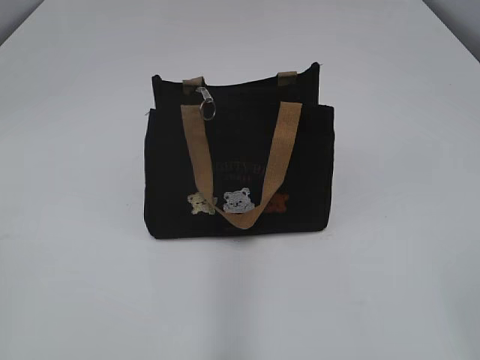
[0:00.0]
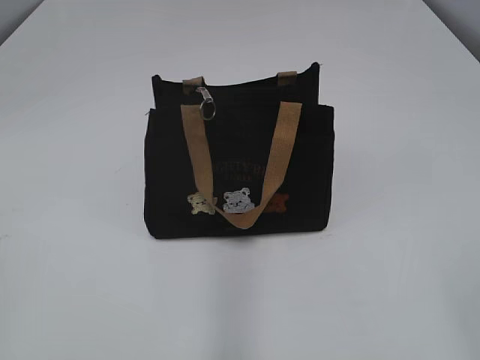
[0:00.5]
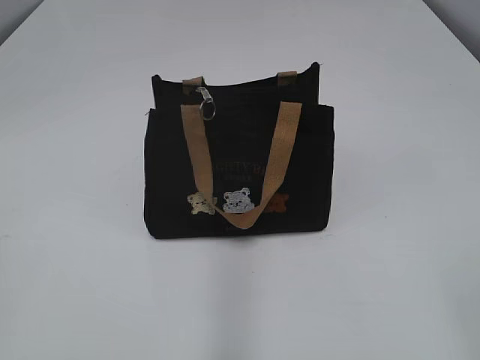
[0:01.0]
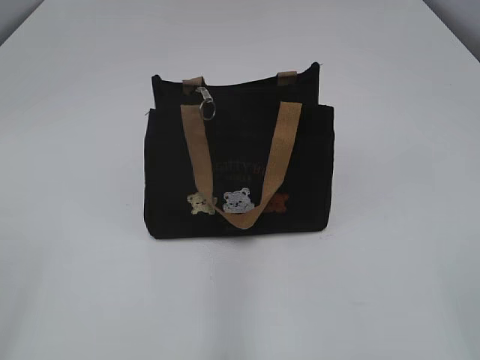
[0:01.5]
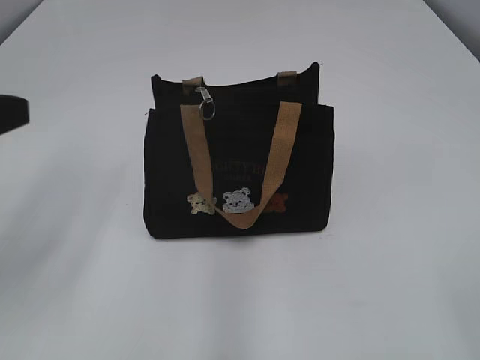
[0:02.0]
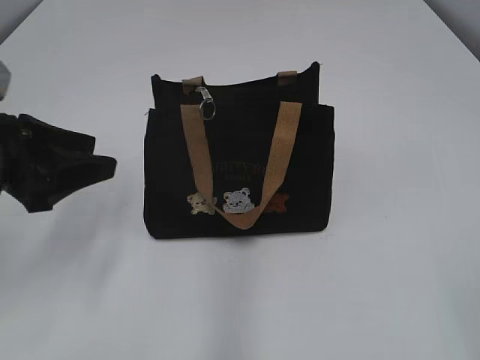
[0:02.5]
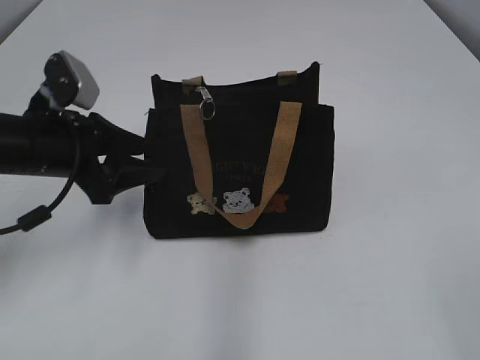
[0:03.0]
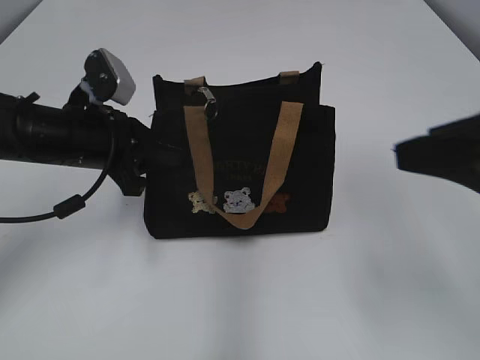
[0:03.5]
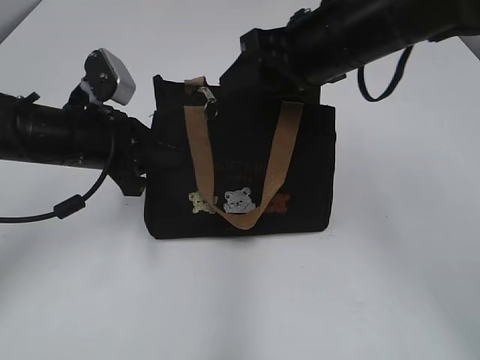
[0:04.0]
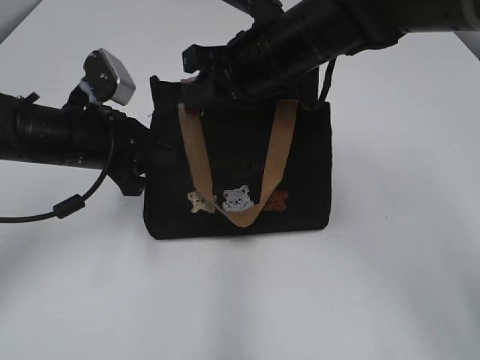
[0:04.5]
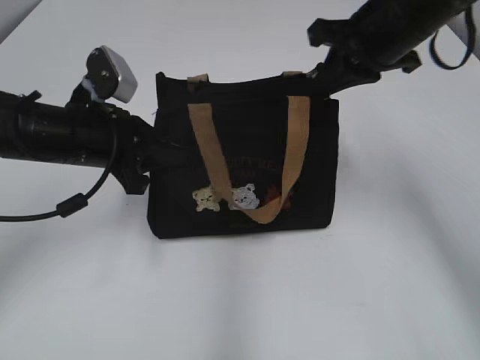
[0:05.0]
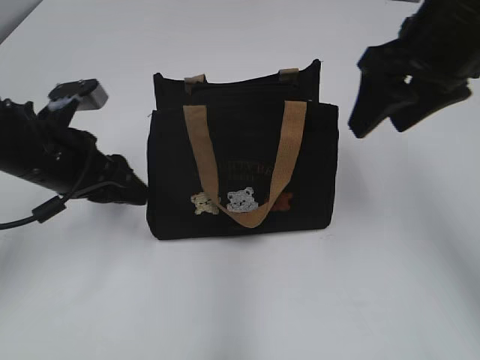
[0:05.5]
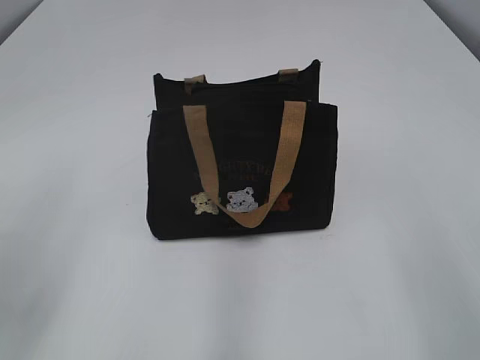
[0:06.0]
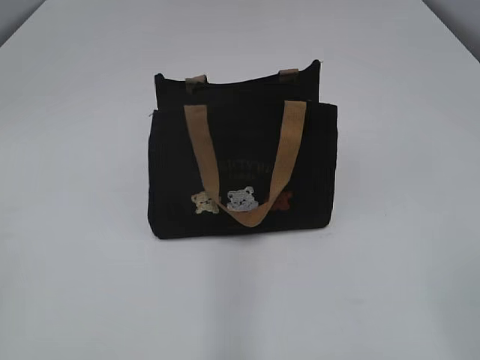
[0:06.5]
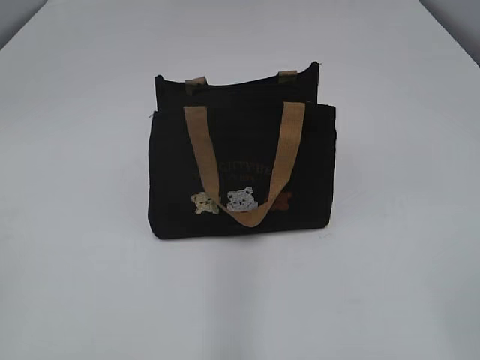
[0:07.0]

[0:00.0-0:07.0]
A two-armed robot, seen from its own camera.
Step, 0:00.0 to 0:05.0: Pull open the zipper with your right hand.
0:02.0 to 0:03.5: The left gripper is displaced forward, downward and to the right by some 20 cm, and closes its fingers. Meanwhile the right gripper heads forward, covering roughly 15 cm.
0:03.5 to 0:05.0: The right gripper moves forward, about 20 cm, and closes.
0:05.0 to 0:07.0: The left gripper shifts approximately 35 cm backward and to the left, and opens, while the right gripper is displaced backward by approximately 40 cm, and opens its fingers.
